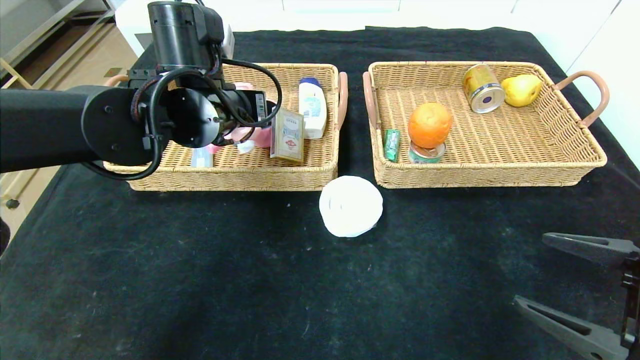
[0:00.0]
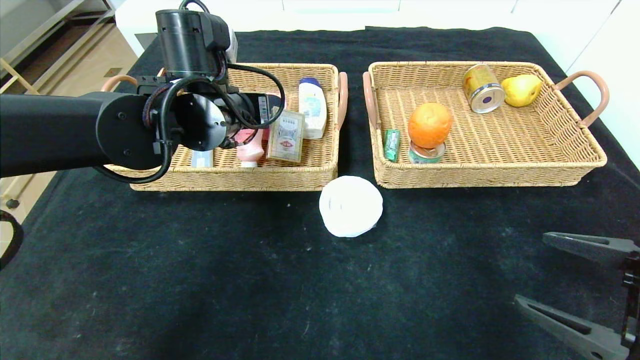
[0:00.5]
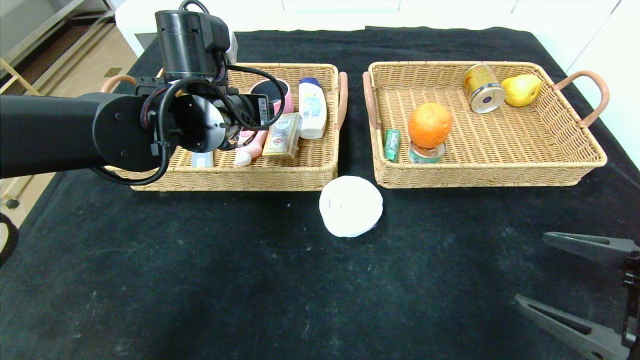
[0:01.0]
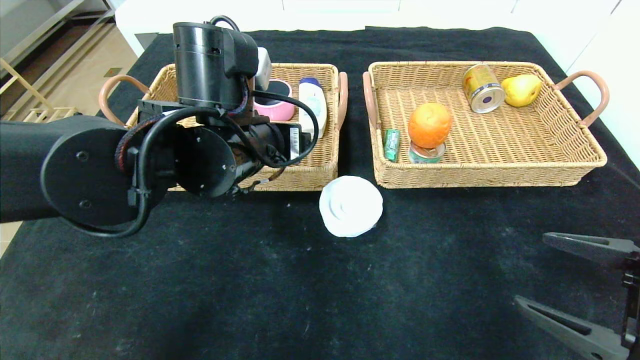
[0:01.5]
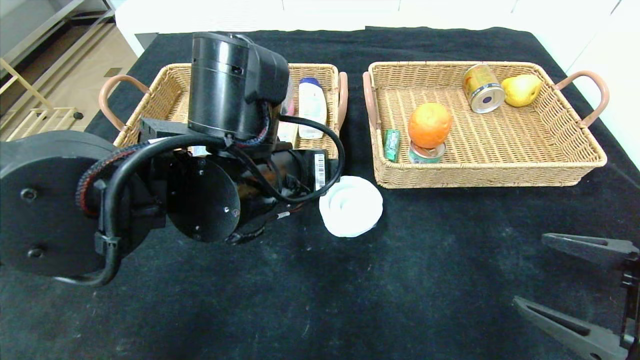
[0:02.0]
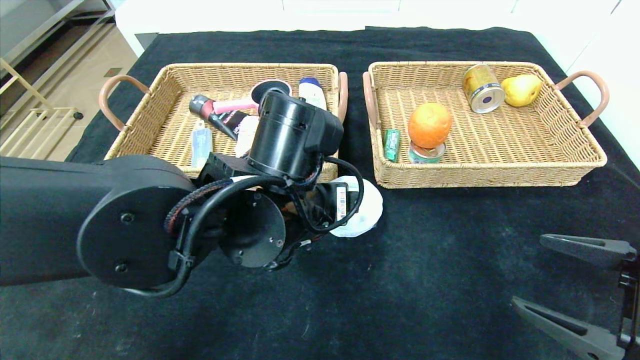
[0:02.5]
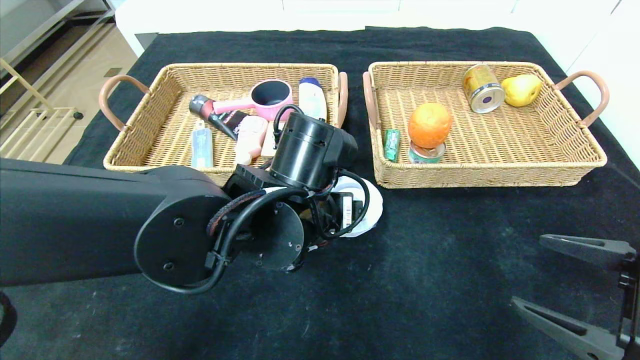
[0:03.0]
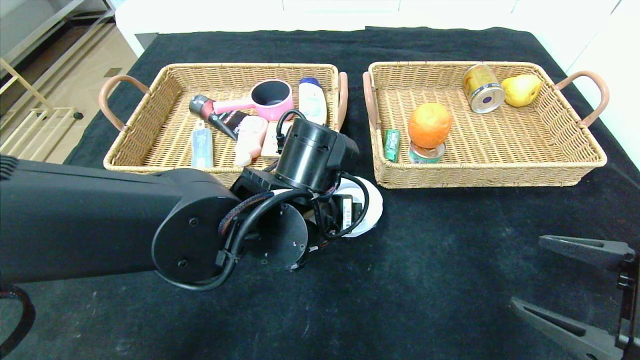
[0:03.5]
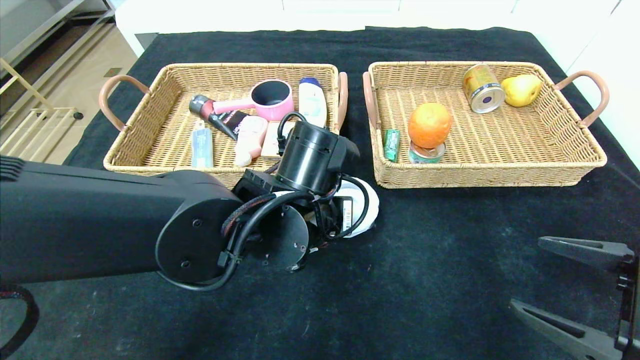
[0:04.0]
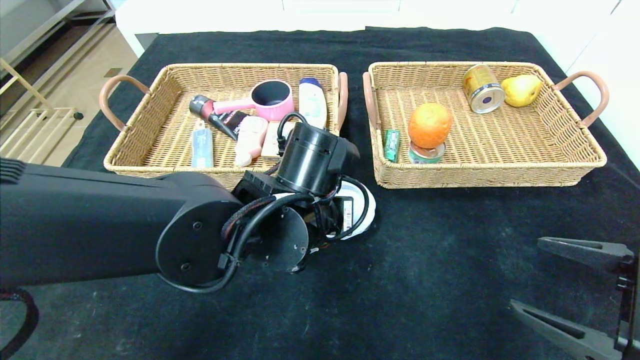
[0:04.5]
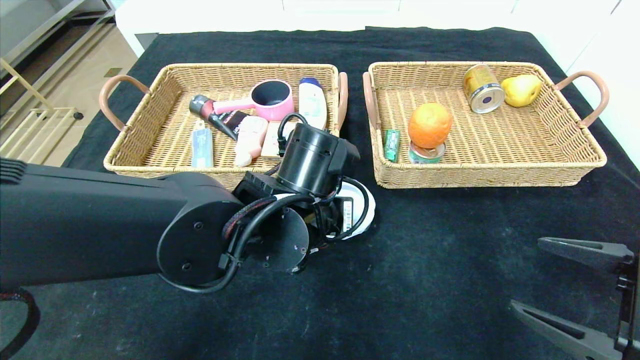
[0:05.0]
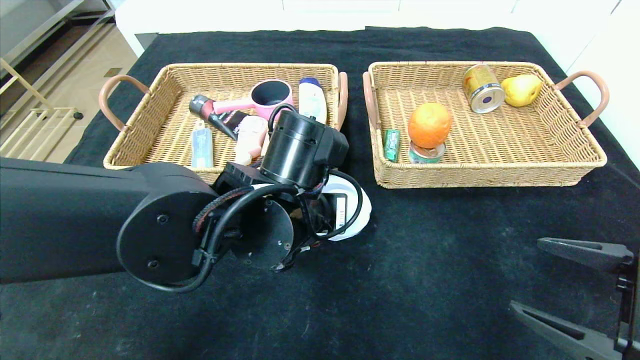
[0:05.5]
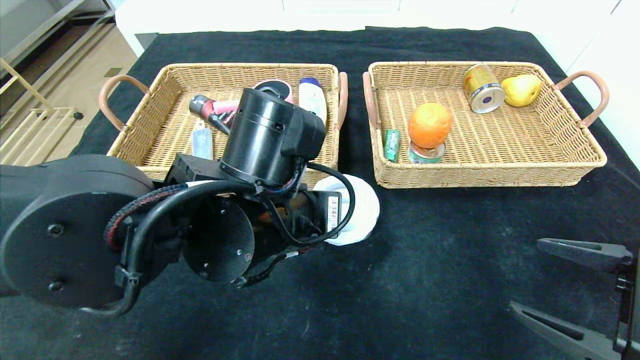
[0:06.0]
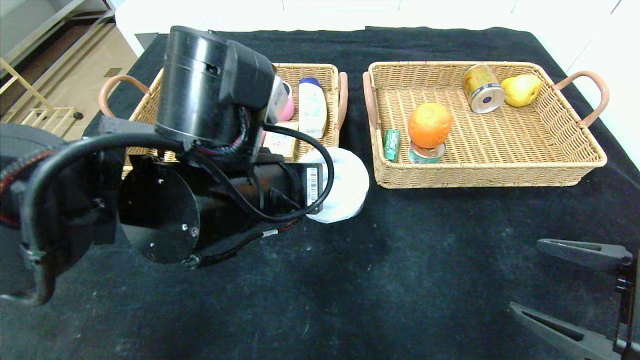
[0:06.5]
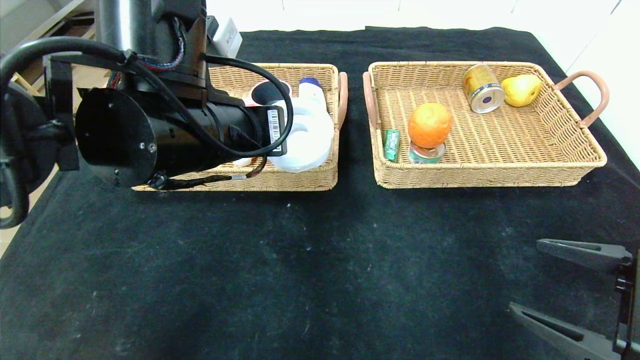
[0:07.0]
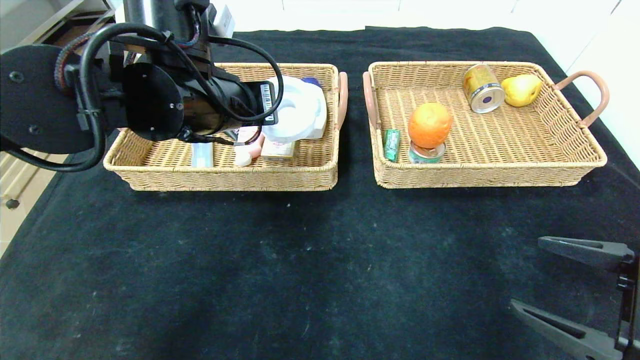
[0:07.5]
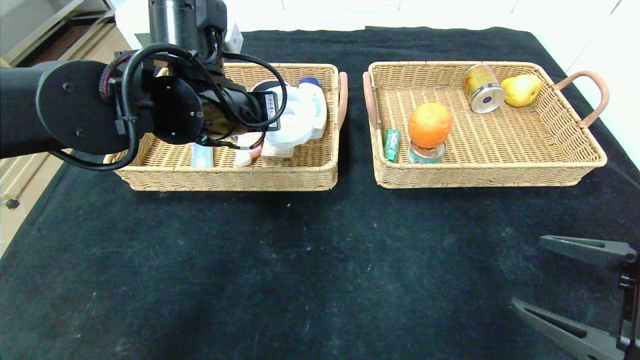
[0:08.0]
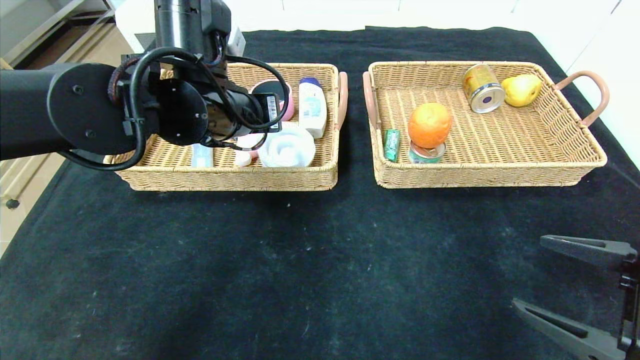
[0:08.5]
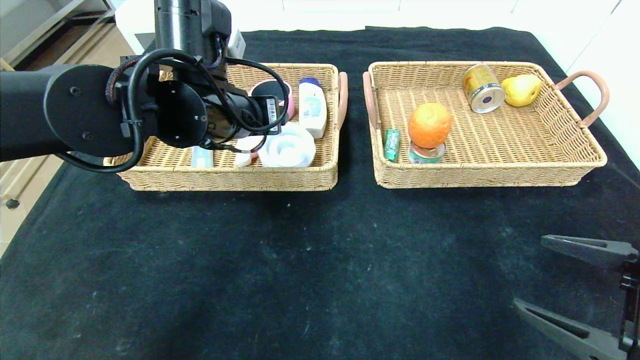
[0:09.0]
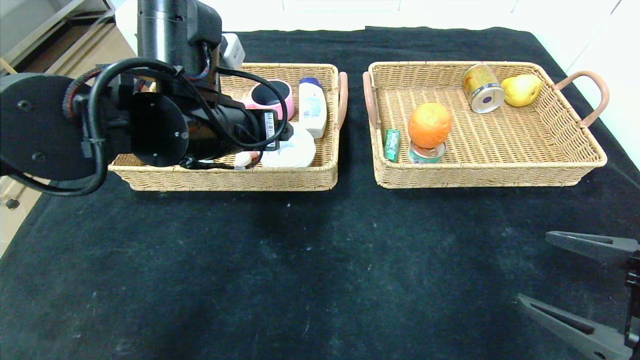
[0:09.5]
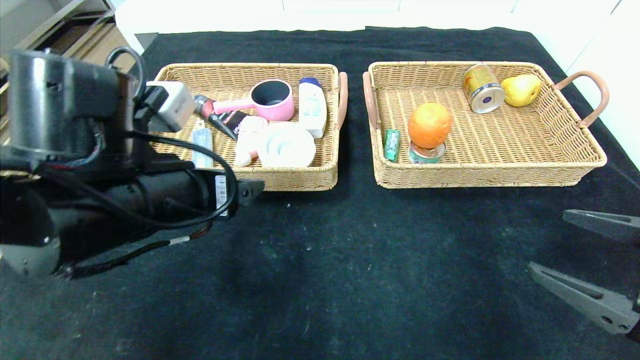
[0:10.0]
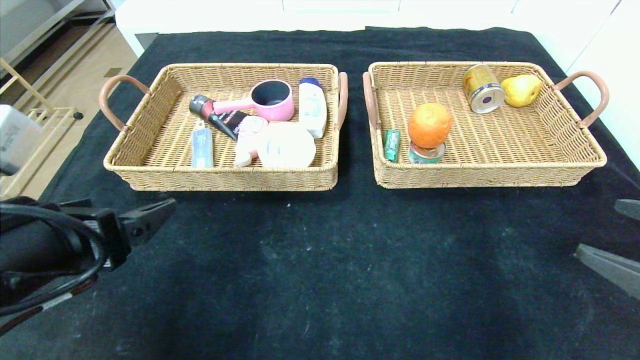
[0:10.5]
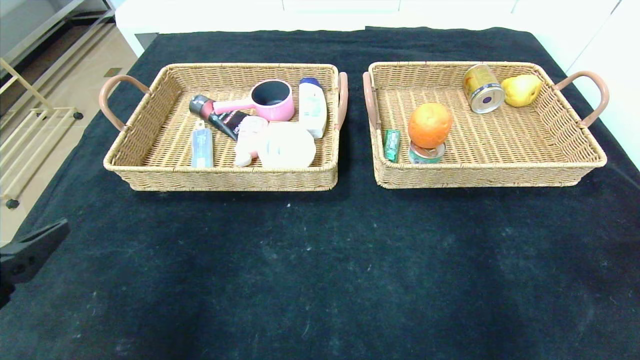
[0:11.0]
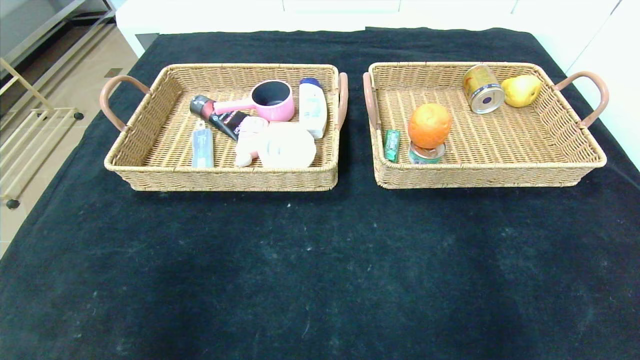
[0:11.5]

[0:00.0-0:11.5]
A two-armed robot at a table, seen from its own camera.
Step, 0:00.0 to 0:02.5: Pick up the washing liquid and put it in the left basket.
Step, 0:03.0 to 0:11.0: Pick up the tape and put it in the left basket.
0:00.0 to 0:02.0: The left gripper shifts some 15 cm backward and to the right, and opens up.
0:02.0 to 0:04.0: The left gripper goes approximately 5 cm downward, and closes.
0:04.0 to 0:06.0: The left gripper shifts by some 5 cm, and closes.
0:06.0 to 0:07.5: The left gripper moves forward, upward and to the left, about 15 cm.
0:07.5 to 0:09.5: The left gripper opens.
0:09.5 to 0:11.5: The left gripper is displaced backward and to the left by about 35 cm, while the right gripper travels backward by roughly 15 cm.

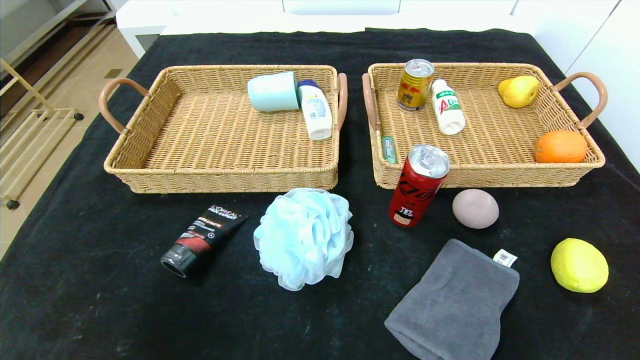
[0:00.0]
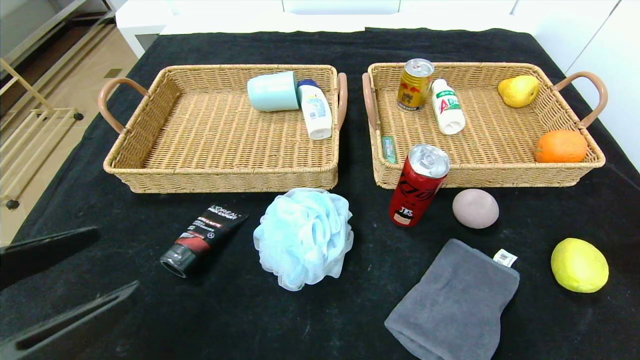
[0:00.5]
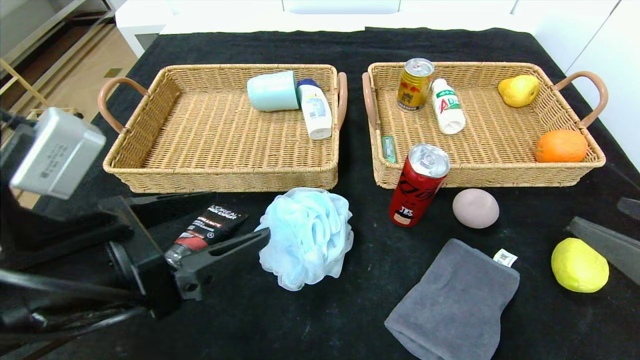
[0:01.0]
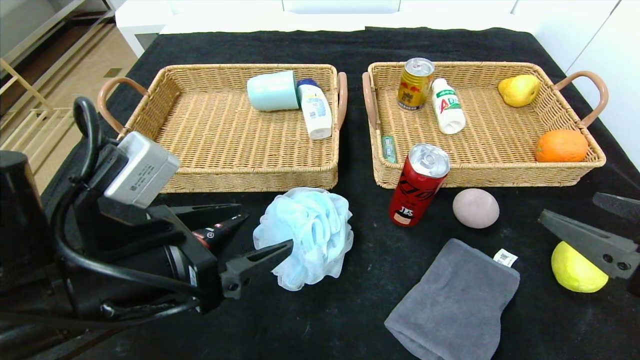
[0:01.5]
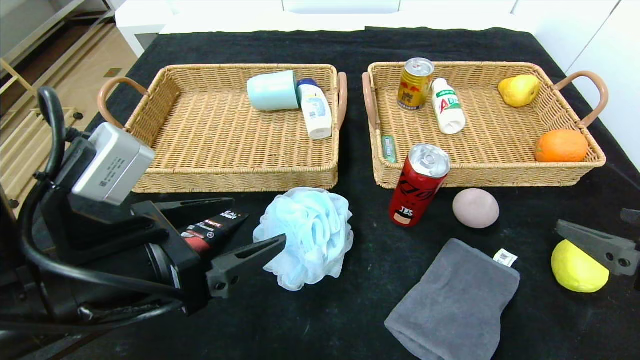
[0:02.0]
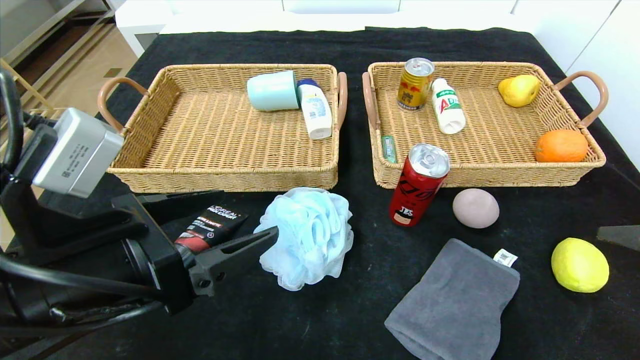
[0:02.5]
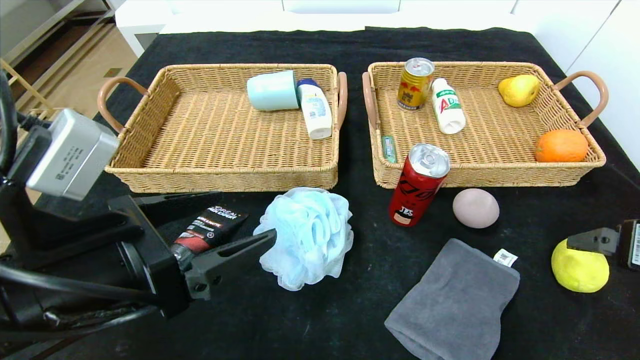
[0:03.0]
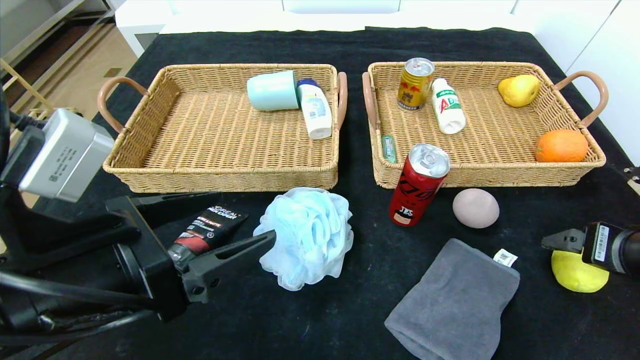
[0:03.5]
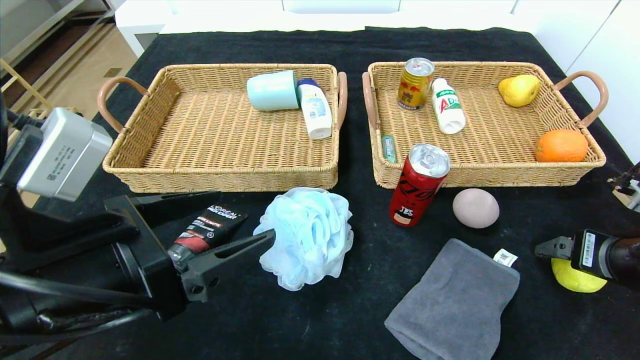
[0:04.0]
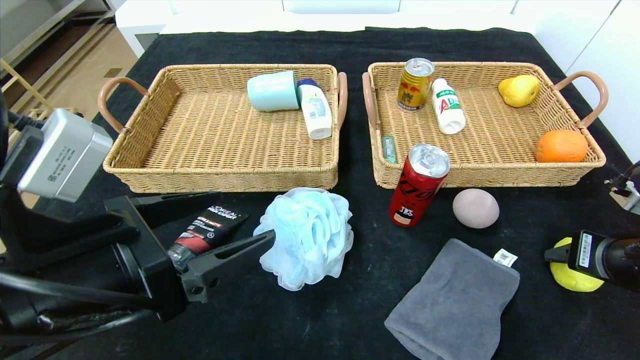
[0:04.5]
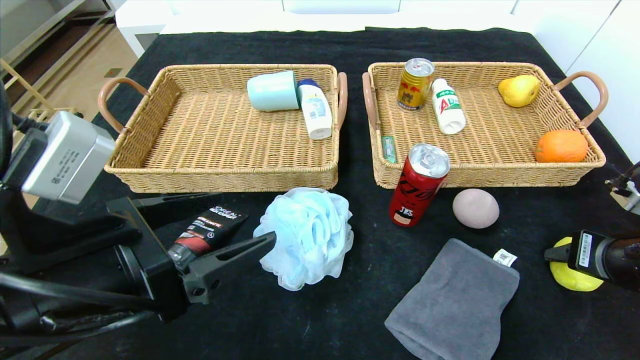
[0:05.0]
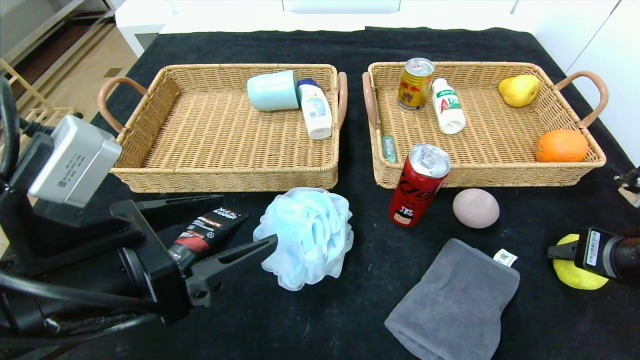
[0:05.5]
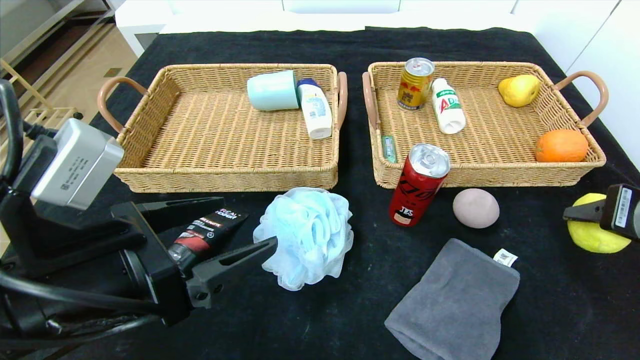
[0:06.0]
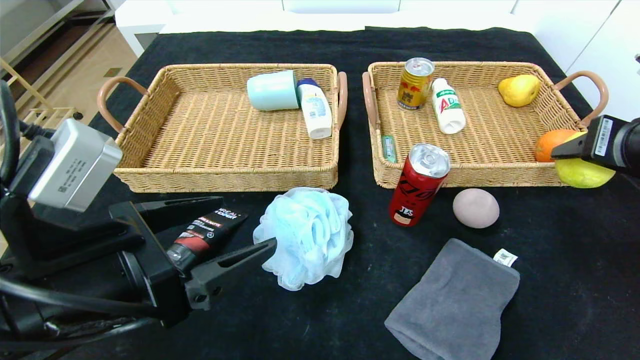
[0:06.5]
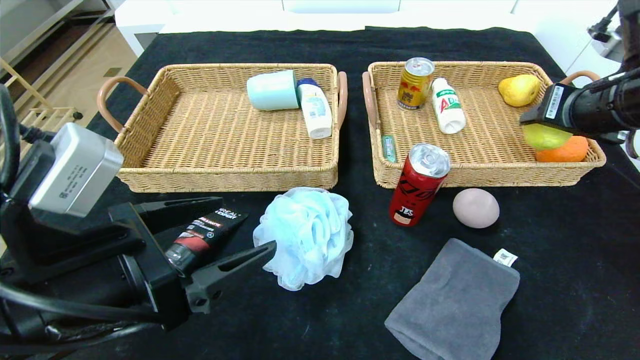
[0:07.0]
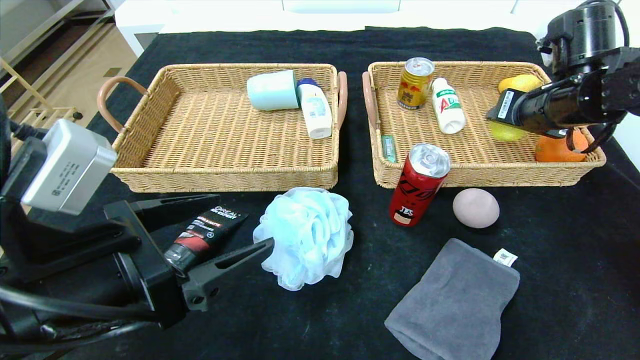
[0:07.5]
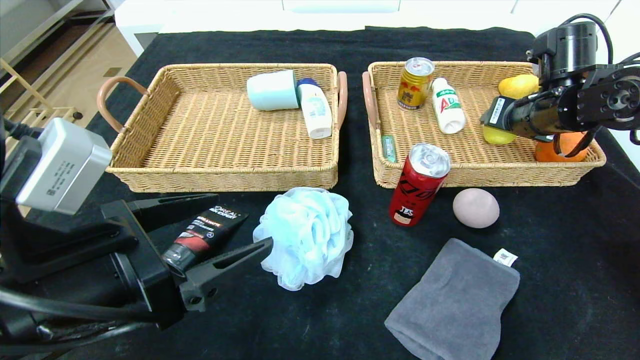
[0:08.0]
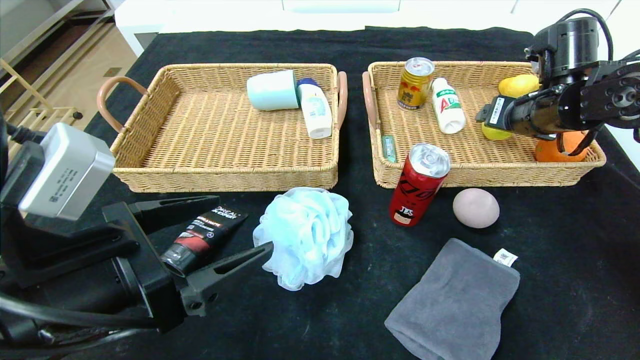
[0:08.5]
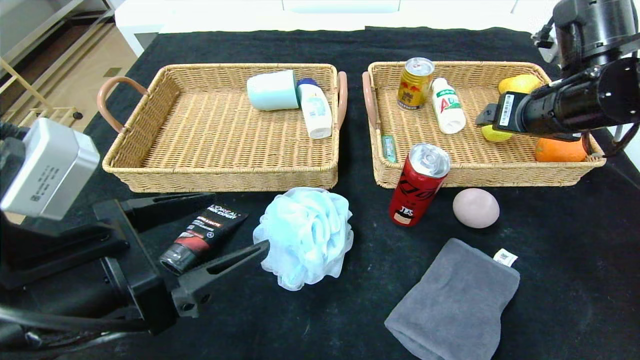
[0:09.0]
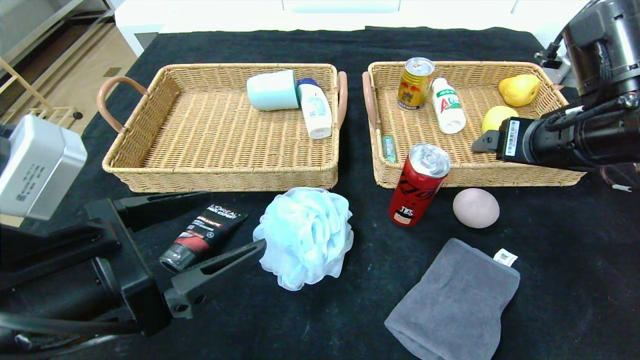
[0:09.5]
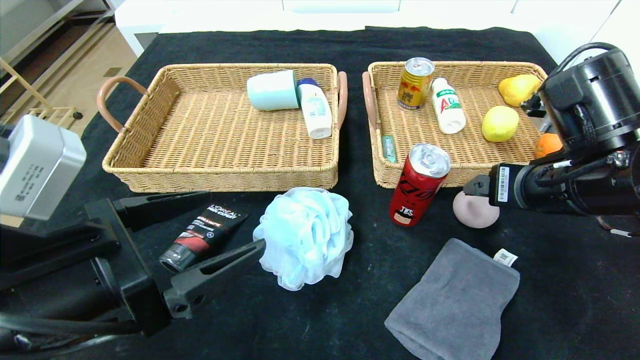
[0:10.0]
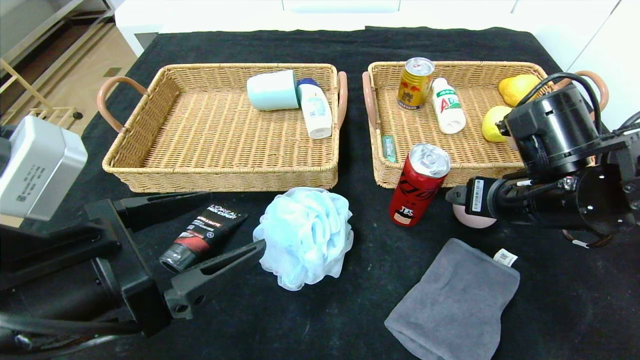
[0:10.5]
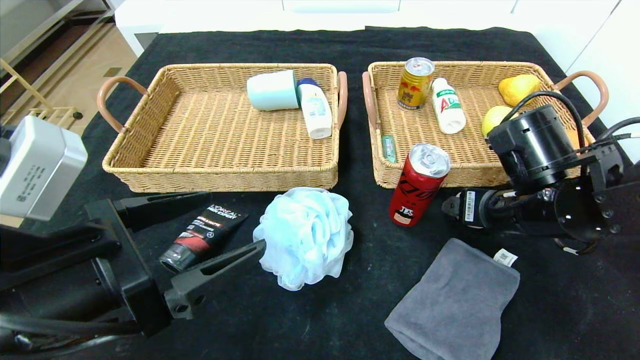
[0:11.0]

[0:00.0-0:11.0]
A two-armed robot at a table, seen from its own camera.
Step, 0:00.0 to 0:08.0: Grasp the lemon and put it in the right basket.
0:00.0 to 0:02.0: The left gripper goes about 20 cm forward and to the right; the right gripper moves forward and upward, some 15 cm.
0:02.0 to 0:03.5: The right gripper goes approximately 5 cm forward.
0:03.5 to 0:05.5: The right gripper closes its fingers.
0:05.5 to 0:07.5: The right gripper goes approximately 20 cm forward and upward.
0:07.5 to 0:09.0: The right gripper goes approximately 5 cm backward, and opens.
0:09.0 to 0:11.0: The right gripper shifts some 10 cm downward.
